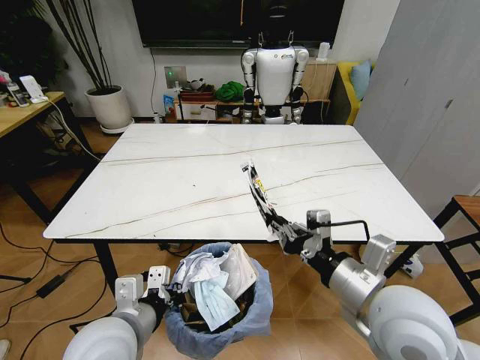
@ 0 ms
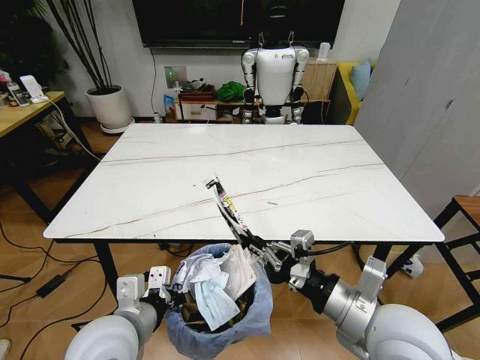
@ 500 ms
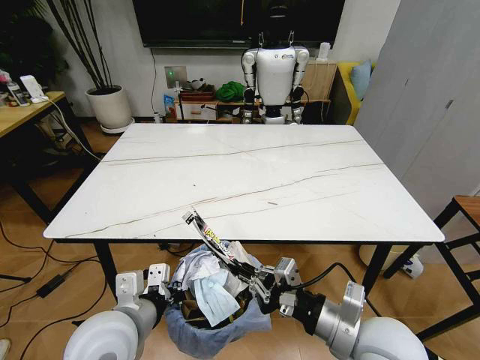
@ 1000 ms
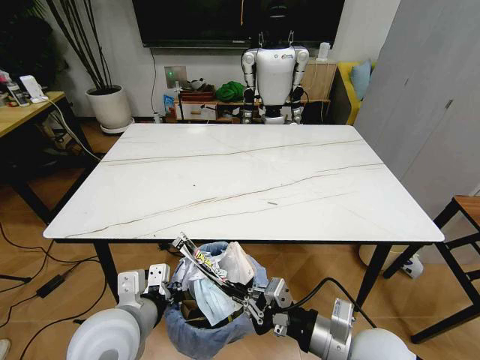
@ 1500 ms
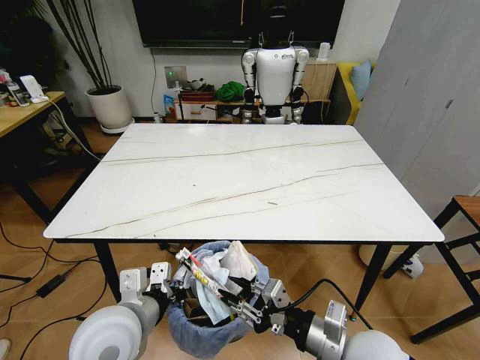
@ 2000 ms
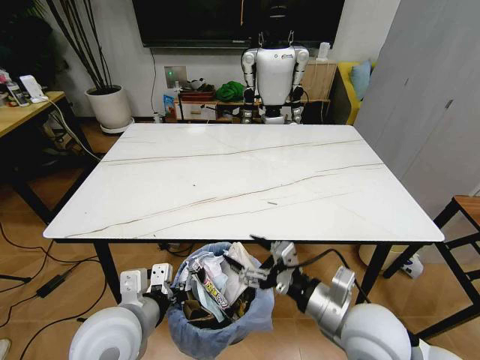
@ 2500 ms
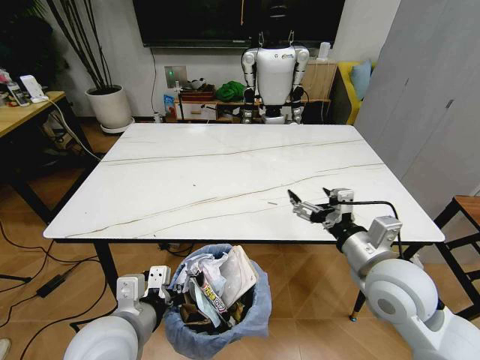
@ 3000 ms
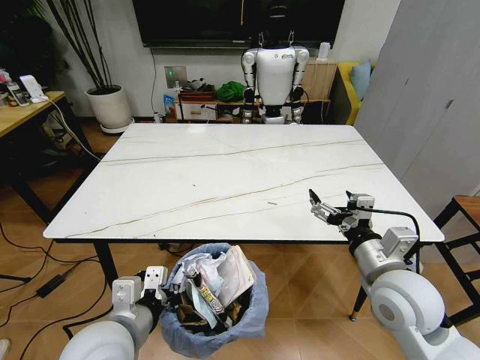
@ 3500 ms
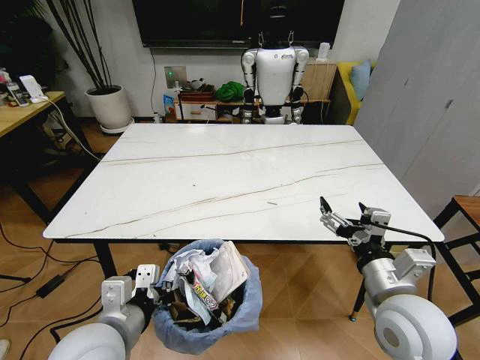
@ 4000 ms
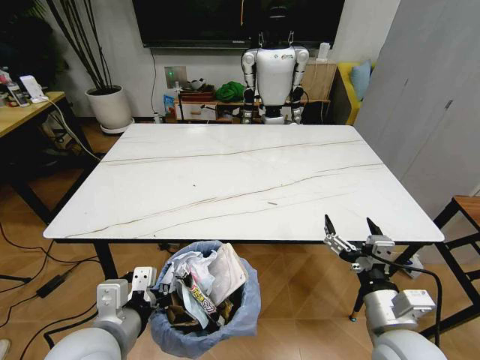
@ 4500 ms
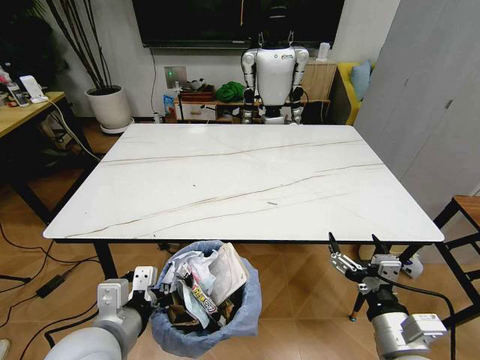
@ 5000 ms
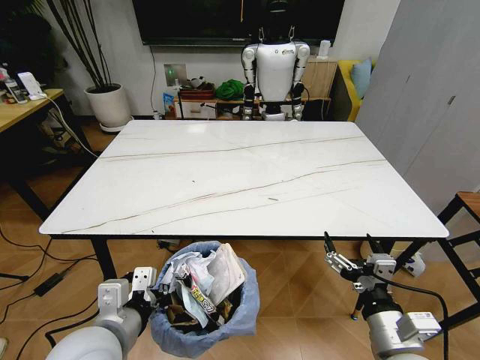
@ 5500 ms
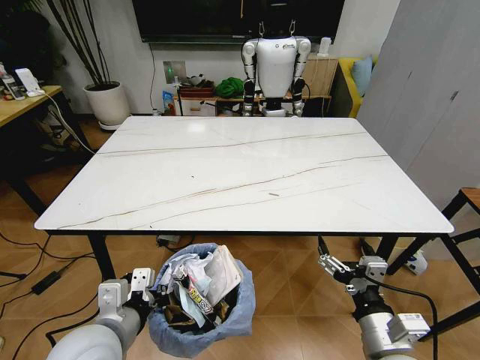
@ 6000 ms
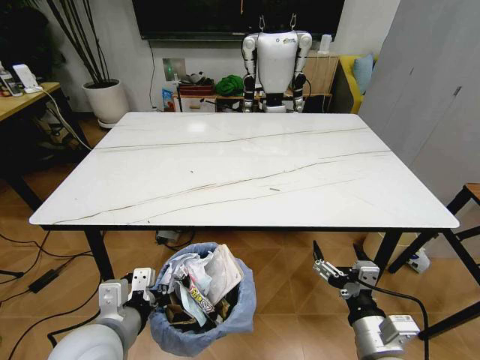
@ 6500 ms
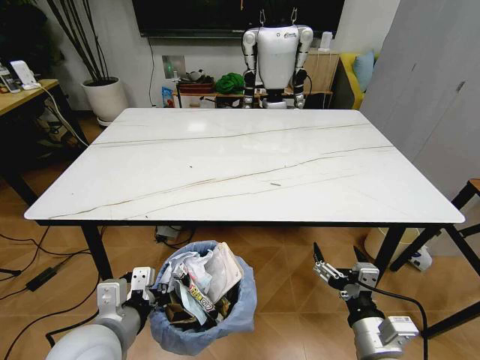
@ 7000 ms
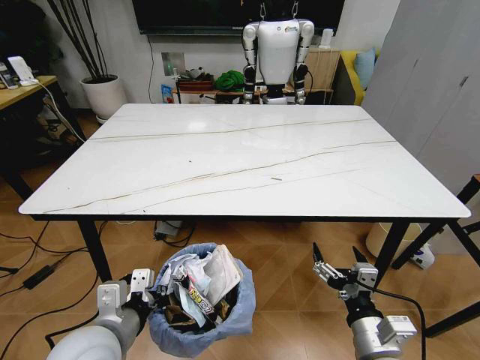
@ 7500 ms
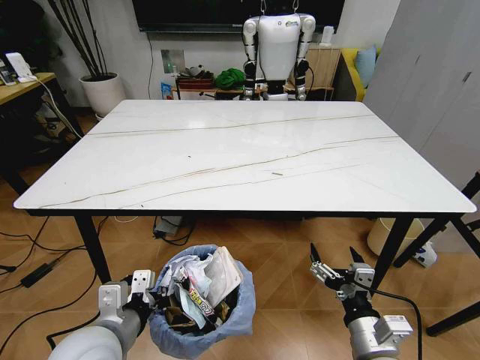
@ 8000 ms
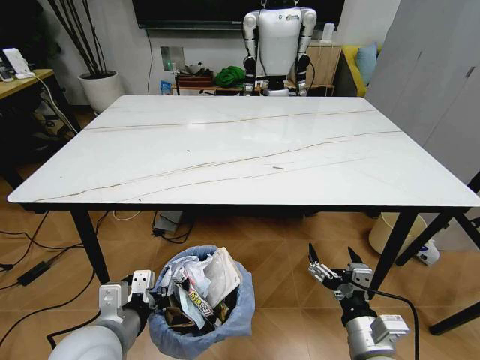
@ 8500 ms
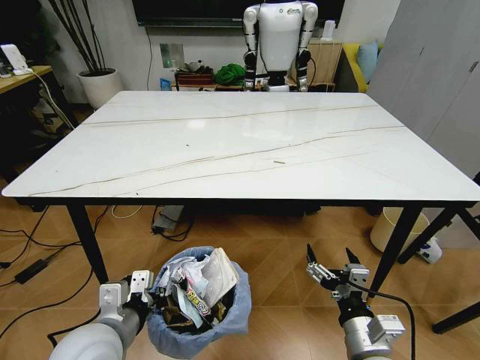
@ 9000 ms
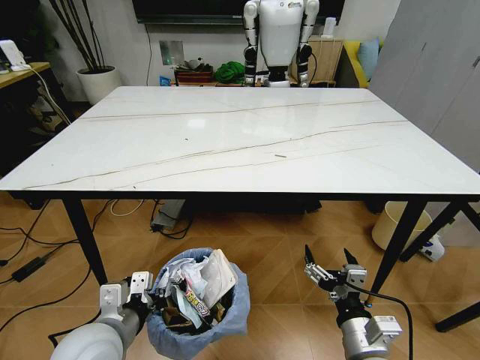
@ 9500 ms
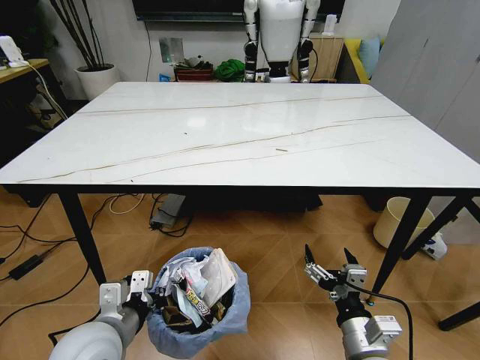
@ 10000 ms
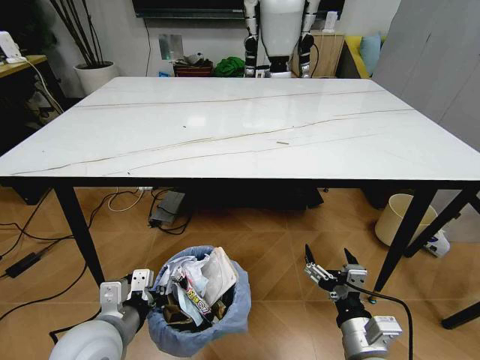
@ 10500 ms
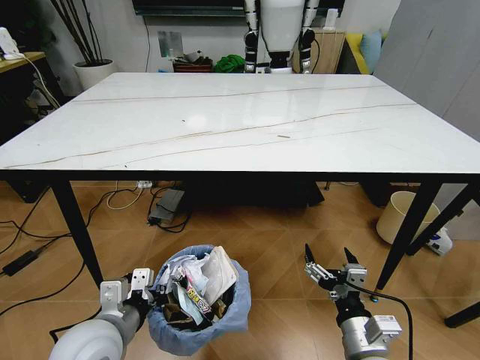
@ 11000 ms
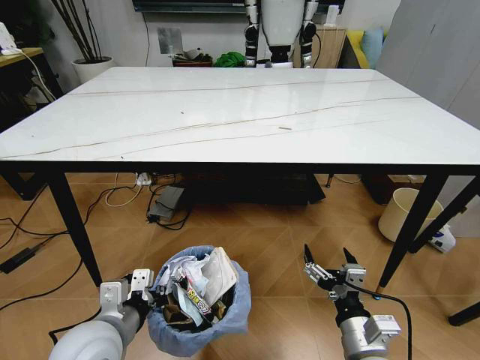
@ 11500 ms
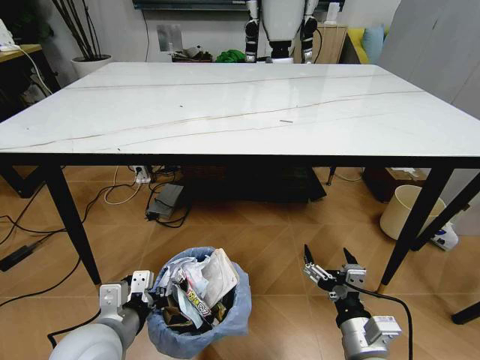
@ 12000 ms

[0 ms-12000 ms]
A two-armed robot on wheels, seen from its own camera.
Task of the whole recording: Pick up the trash bin and place the trash from the table into it.
0 ms to 2000 ms: The right gripper shifts some 10 cm downward.
2000 ms to 4000 ms: The right gripper is displaced to the right by roughly 5 cm, and opens up.
4000 ms to 6000 ms: The right gripper travels backward and downward by roughly 10 cm.

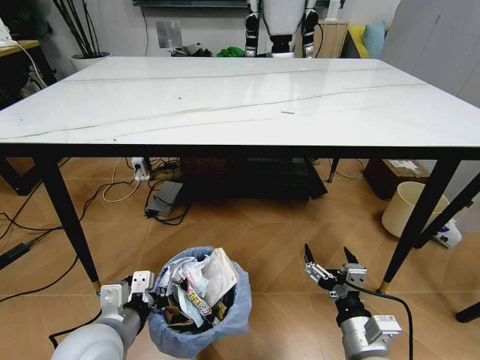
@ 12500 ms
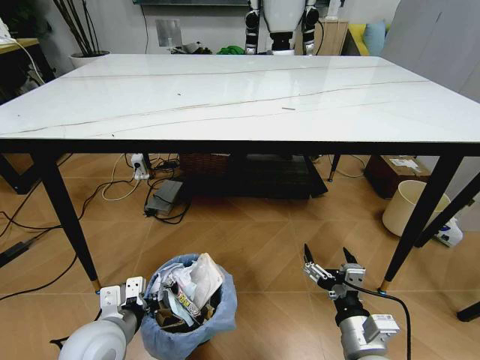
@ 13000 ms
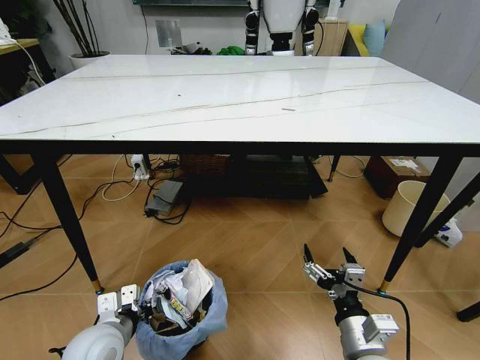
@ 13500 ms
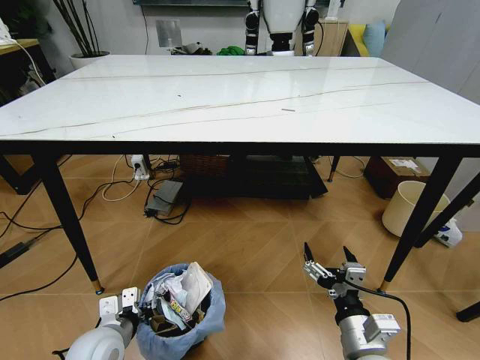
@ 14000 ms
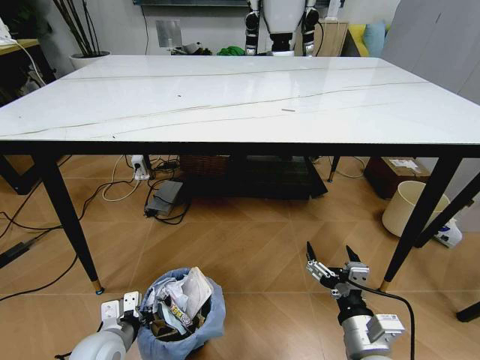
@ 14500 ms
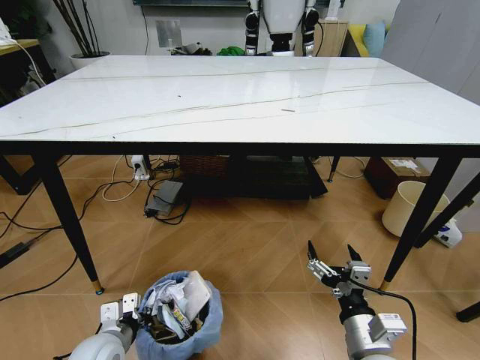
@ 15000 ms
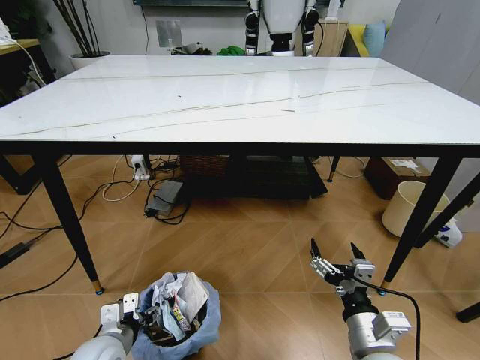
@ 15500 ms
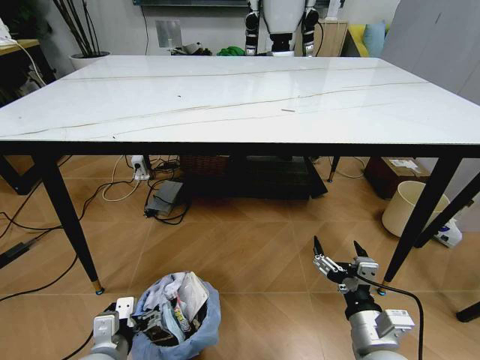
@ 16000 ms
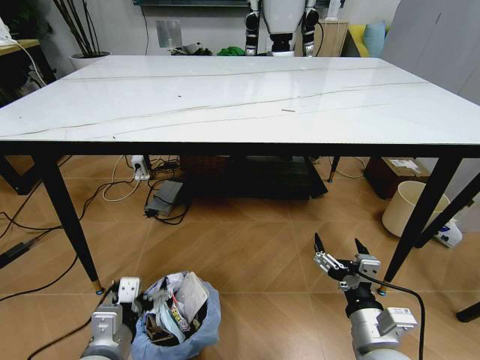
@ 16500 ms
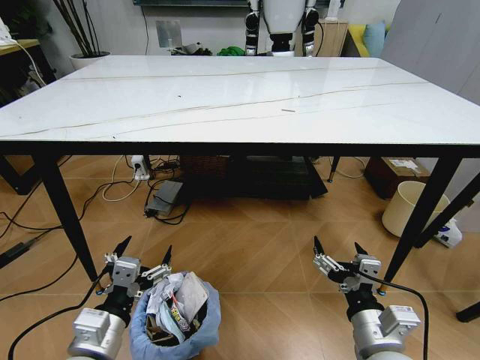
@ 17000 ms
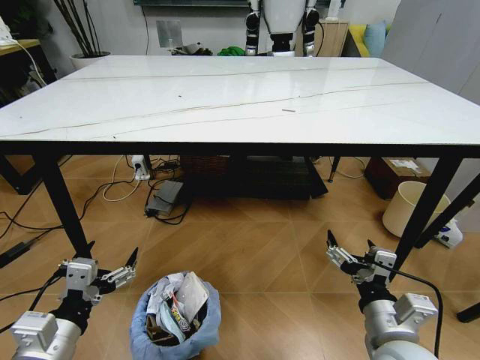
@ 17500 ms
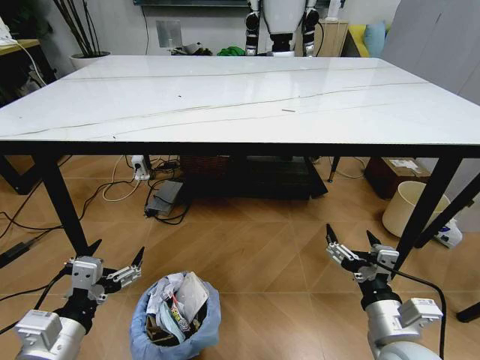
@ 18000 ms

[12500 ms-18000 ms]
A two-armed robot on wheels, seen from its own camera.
Task of the whole recording: Pick up the trash bin and place the trash from the table into it.
12500 ms to 14500 ms: The left gripper moves downward and to the left, some 15 cm.
14500 ms to 16000 ms: The left gripper changes place by some 5 cm, and opens up.
16000 ms to 18000 ms: The left gripper travels upward by roughly 10 cm.
